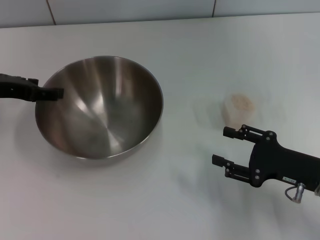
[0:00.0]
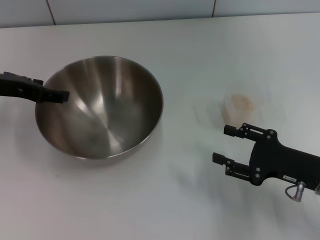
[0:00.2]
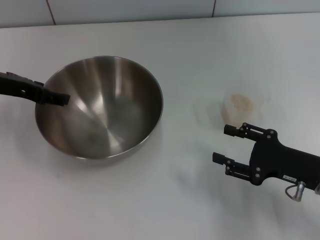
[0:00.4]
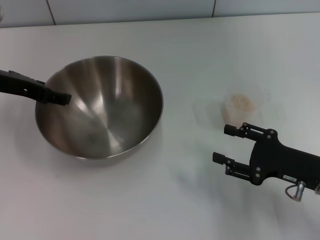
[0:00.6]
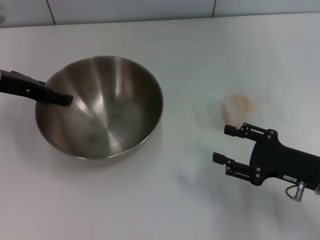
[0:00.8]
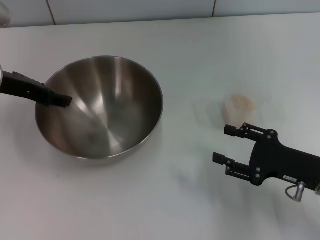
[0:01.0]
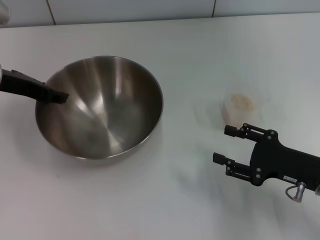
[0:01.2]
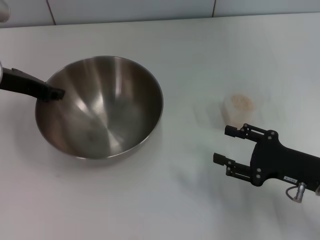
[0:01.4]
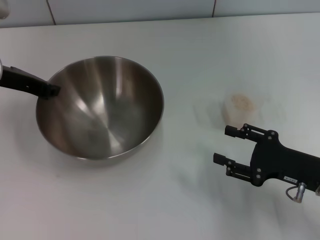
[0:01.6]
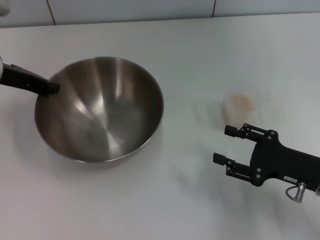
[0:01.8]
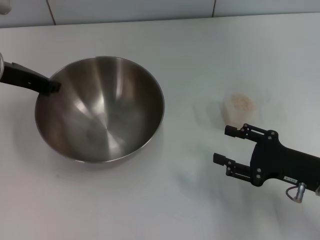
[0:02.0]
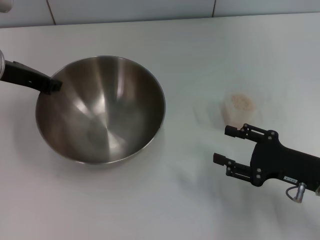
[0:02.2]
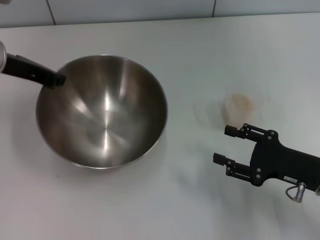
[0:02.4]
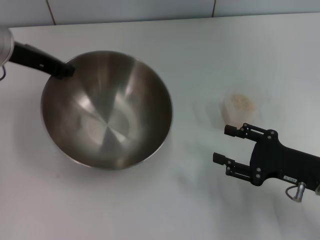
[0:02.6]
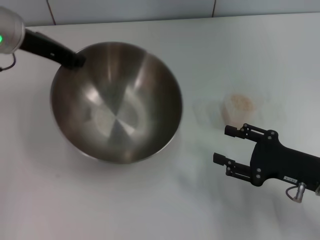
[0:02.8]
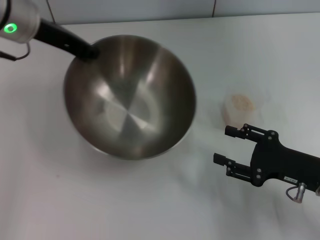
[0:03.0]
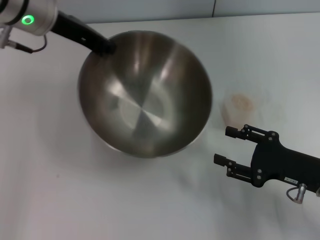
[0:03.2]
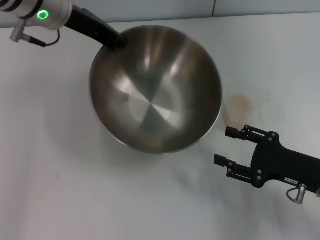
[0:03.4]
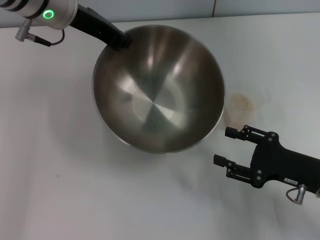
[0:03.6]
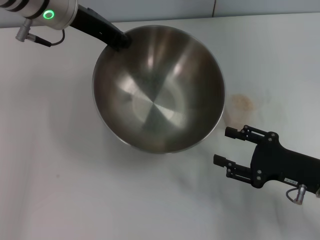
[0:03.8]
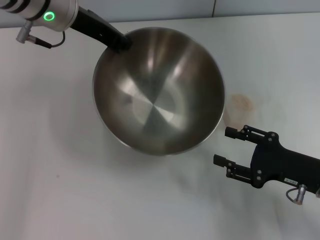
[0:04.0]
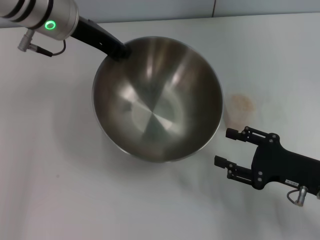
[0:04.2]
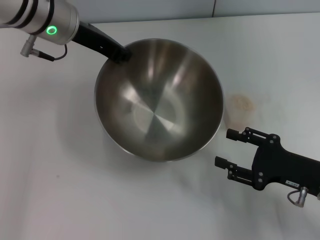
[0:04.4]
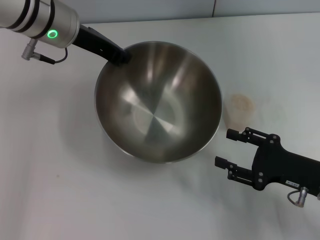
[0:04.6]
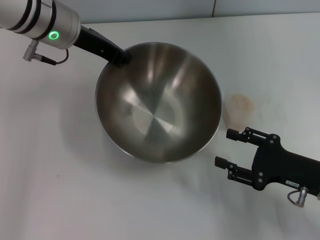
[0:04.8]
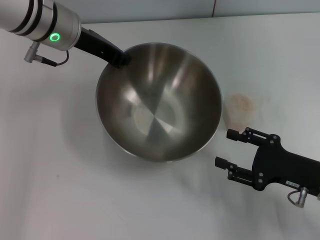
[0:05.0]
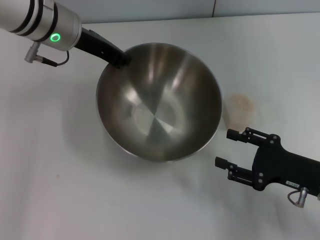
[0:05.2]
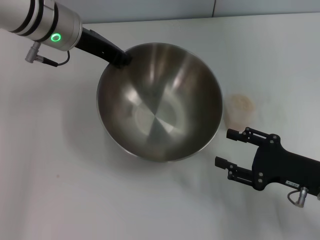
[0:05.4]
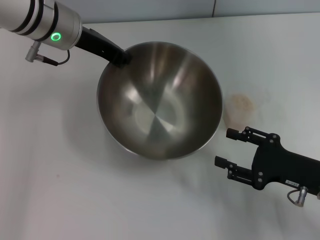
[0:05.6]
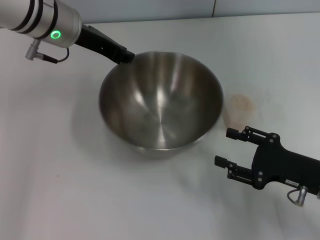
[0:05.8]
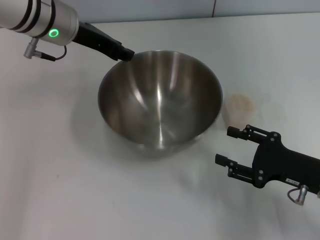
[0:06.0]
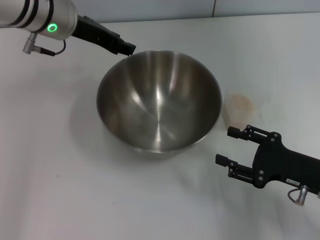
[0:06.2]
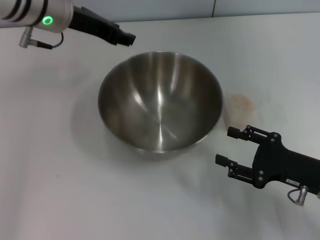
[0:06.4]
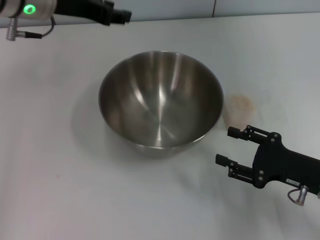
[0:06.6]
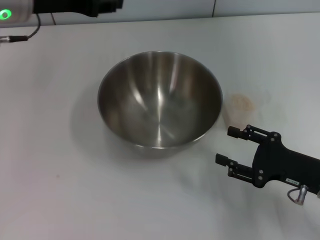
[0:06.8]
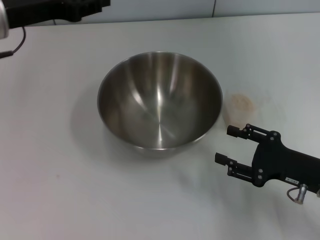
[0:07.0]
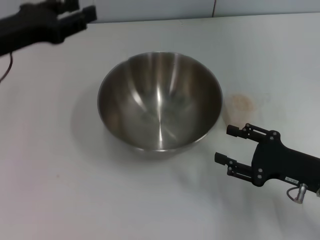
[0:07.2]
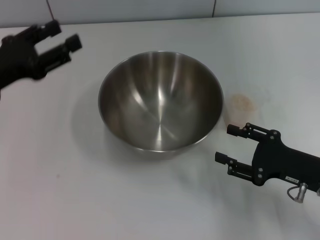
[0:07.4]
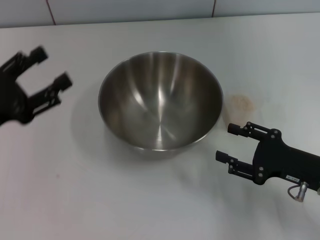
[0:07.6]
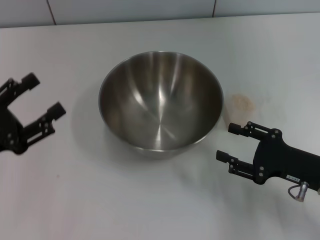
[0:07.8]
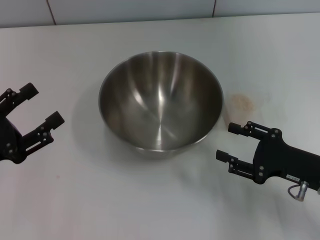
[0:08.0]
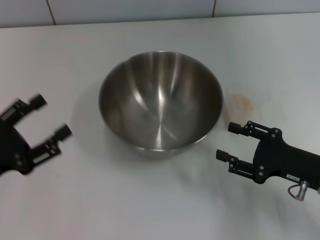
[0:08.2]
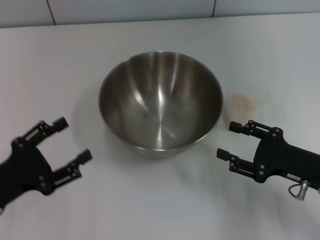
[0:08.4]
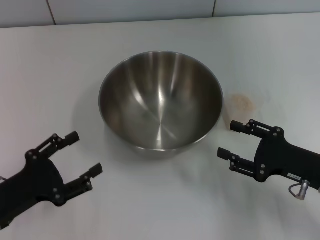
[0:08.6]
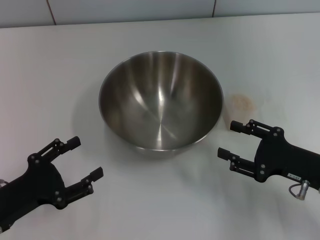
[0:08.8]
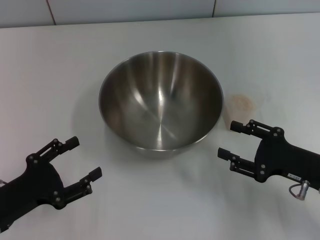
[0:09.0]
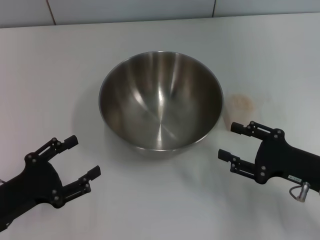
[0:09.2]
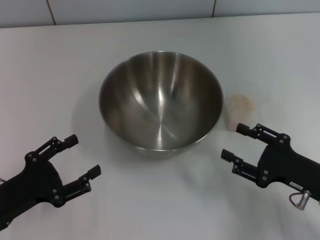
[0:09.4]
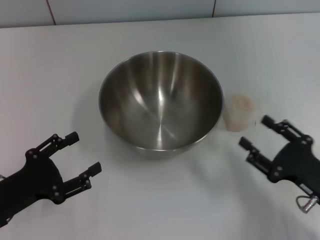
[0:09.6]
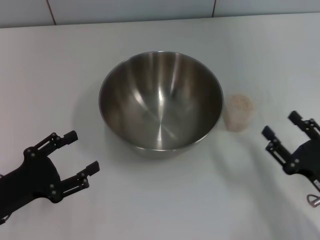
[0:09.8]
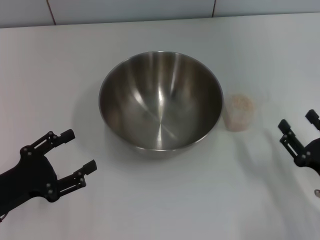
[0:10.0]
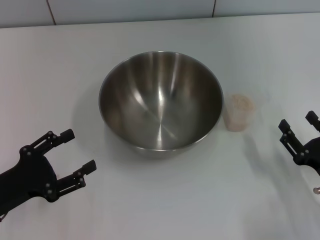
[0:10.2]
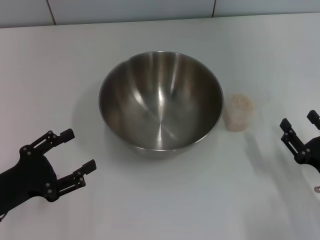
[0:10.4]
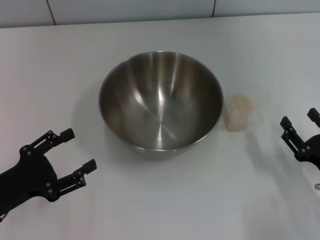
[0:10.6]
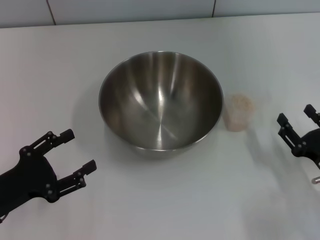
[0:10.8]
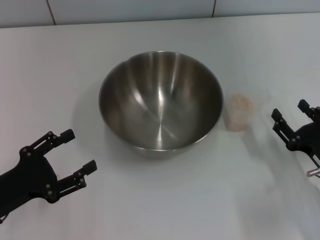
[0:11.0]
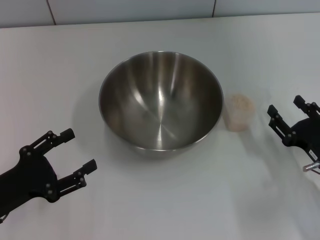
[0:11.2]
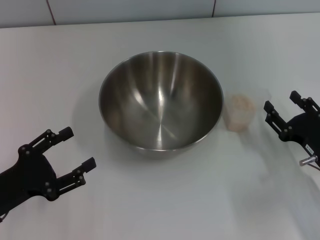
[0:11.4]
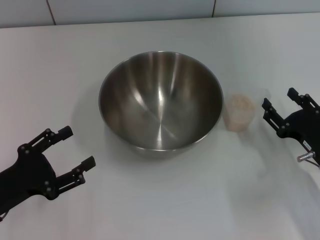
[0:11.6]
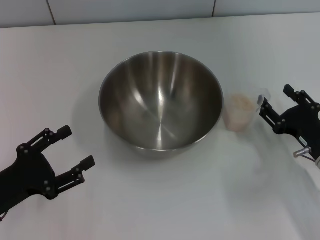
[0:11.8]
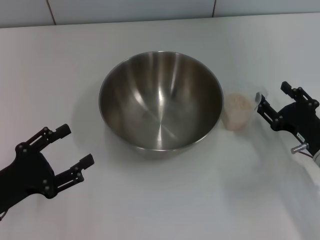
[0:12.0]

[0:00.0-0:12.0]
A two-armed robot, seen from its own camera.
Task of the whole recording: Place the bowl in the middle of the table with one hand and pour the rice from the grain cup into it with the other hand.
Step, 0:00.0 to 0:02.4: Pick up the bowl with the left gripper.
Step, 0:02.6 to 0:06.0: Place the bowl in the center of view with the left gripper.
0:00.0 to 0:01.6: The left gripper closes its fingers.
0:01.6 to 0:03.0: The left gripper heads to the right and upward, covering roughly 10 cm.
0:04.4 to 0:06.0: The grippers stay close to where they were, moving slightly.
0:06.0 to 0:07.6: The left gripper heads backward, to the left and downward, covering roughly 25 cm, and opens its fingers.
0:07.6 to 0:09.0: The left gripper goes some 10 cm downward and backward.
0:09.0 to 0:10.4: The right gripper moves backward, about 5 cm.
0:10.4 to 0:12.0: The right gripper moves forward, roughly 10 cm.

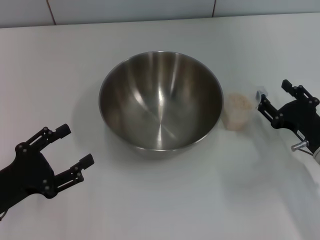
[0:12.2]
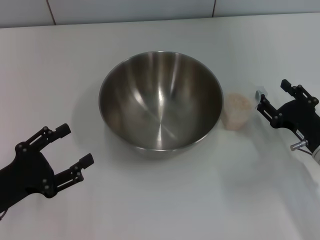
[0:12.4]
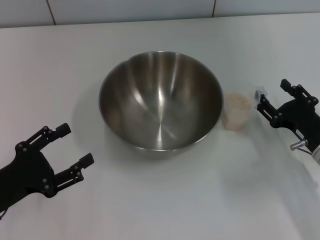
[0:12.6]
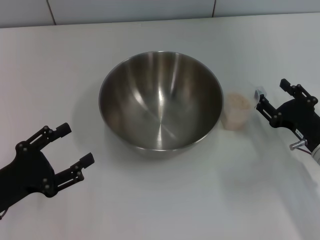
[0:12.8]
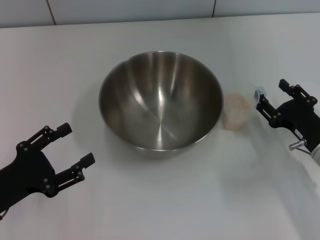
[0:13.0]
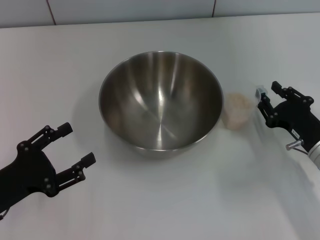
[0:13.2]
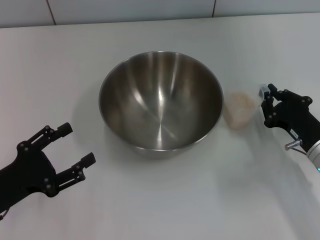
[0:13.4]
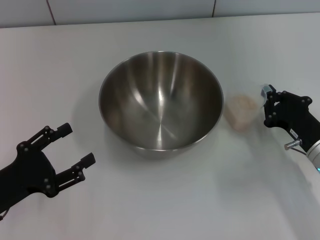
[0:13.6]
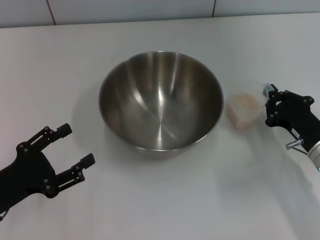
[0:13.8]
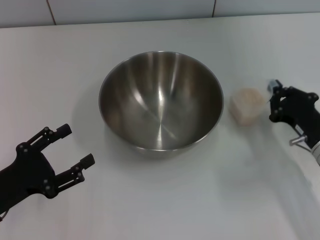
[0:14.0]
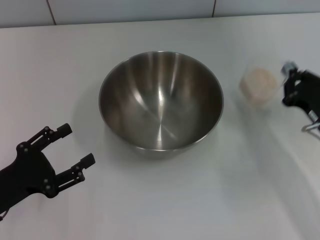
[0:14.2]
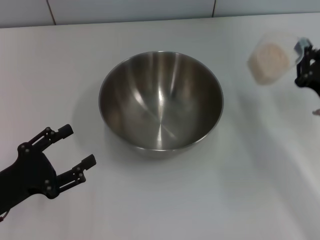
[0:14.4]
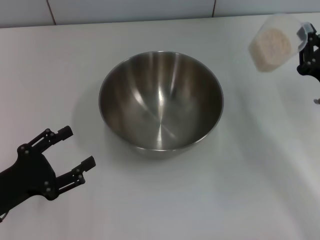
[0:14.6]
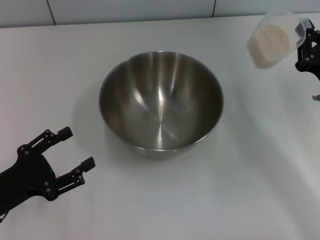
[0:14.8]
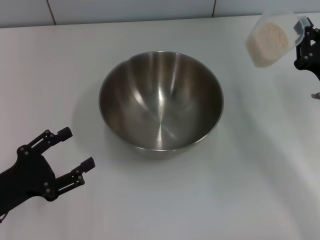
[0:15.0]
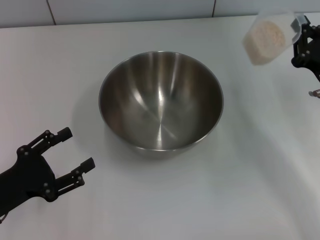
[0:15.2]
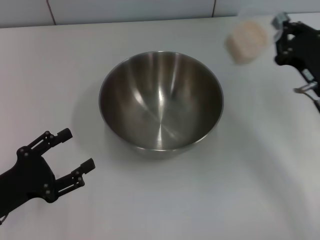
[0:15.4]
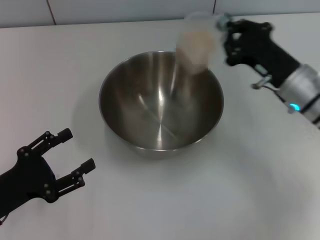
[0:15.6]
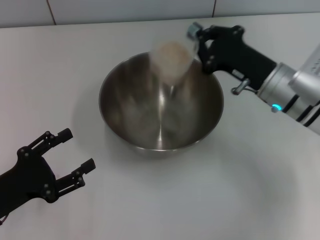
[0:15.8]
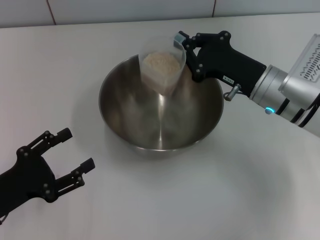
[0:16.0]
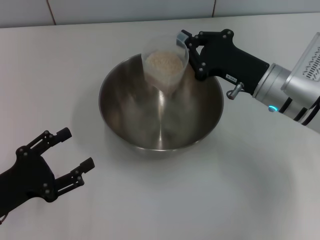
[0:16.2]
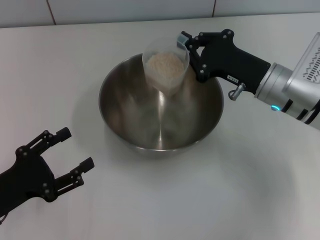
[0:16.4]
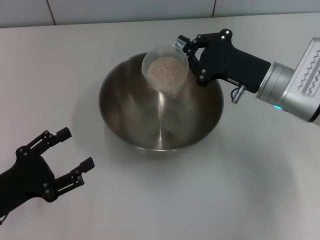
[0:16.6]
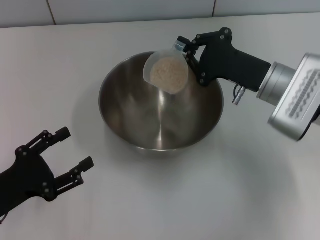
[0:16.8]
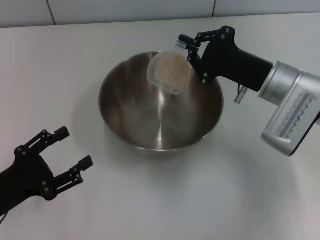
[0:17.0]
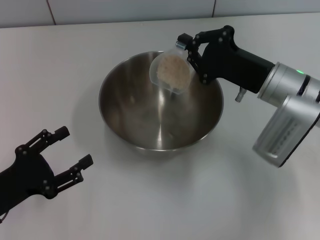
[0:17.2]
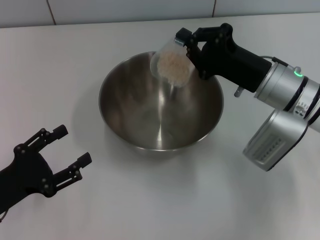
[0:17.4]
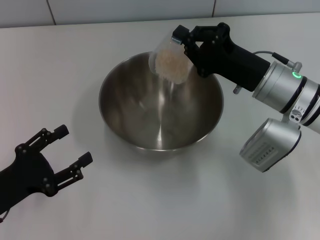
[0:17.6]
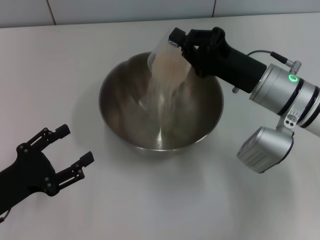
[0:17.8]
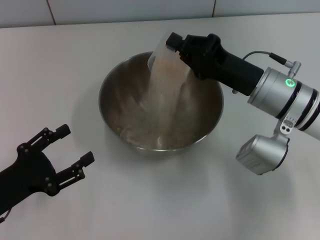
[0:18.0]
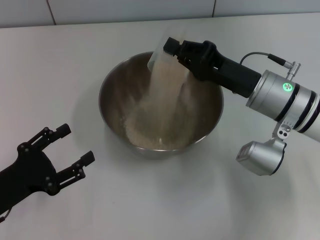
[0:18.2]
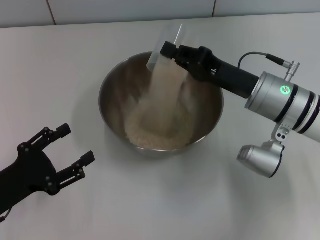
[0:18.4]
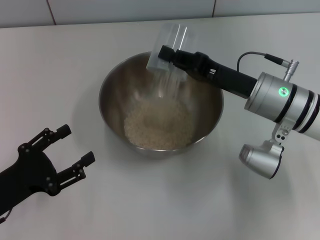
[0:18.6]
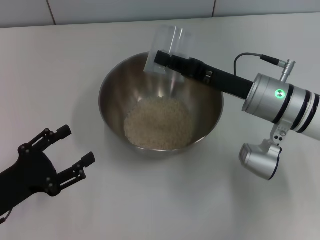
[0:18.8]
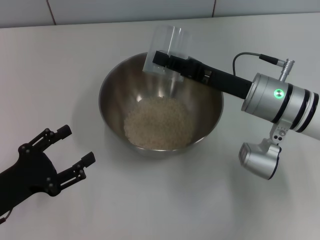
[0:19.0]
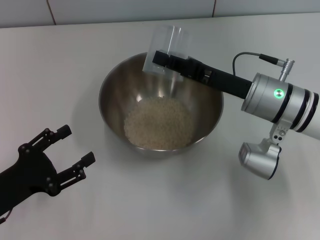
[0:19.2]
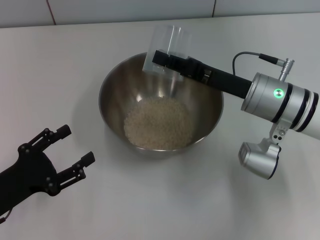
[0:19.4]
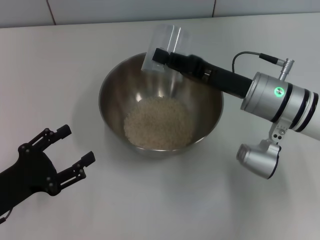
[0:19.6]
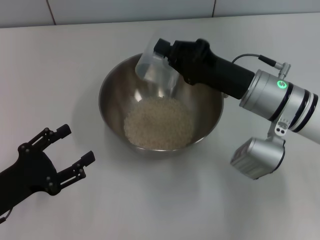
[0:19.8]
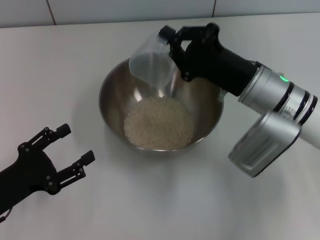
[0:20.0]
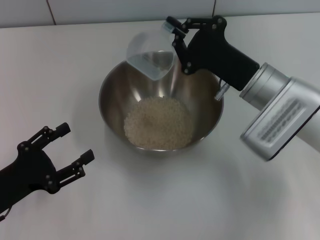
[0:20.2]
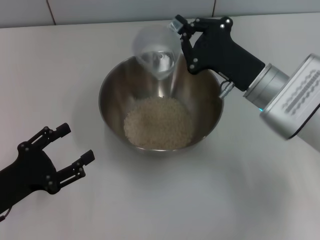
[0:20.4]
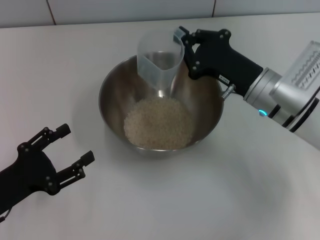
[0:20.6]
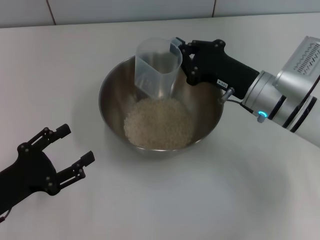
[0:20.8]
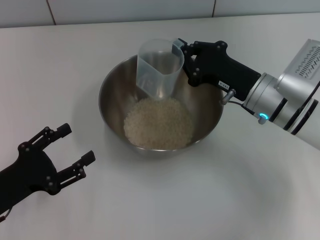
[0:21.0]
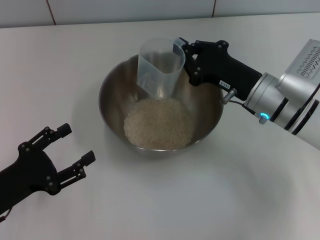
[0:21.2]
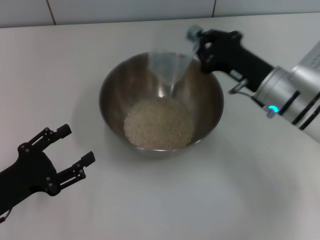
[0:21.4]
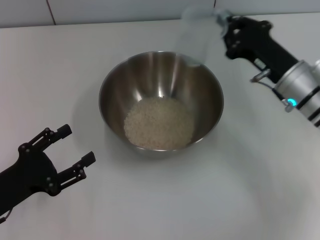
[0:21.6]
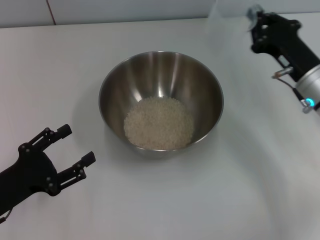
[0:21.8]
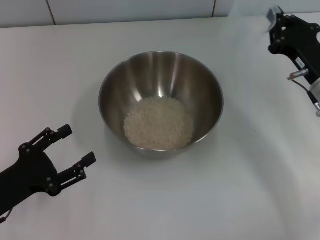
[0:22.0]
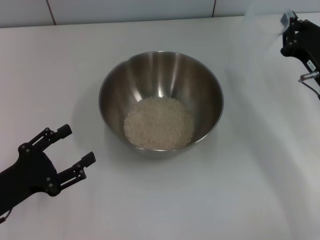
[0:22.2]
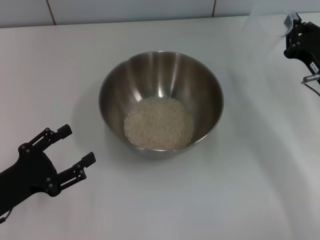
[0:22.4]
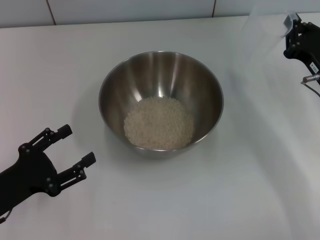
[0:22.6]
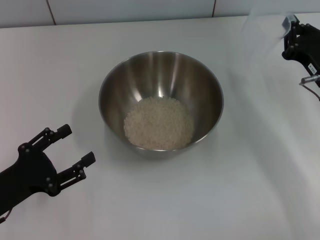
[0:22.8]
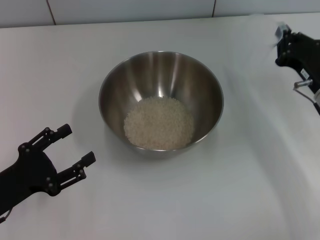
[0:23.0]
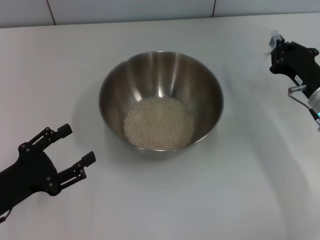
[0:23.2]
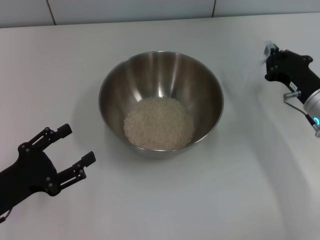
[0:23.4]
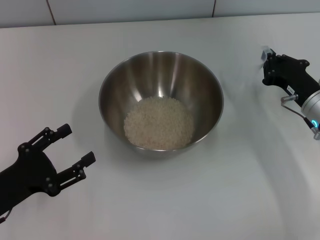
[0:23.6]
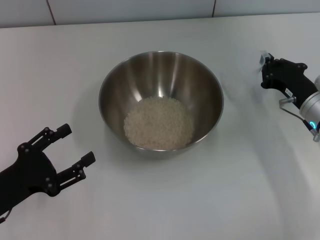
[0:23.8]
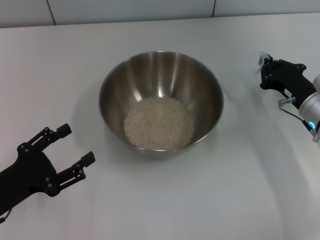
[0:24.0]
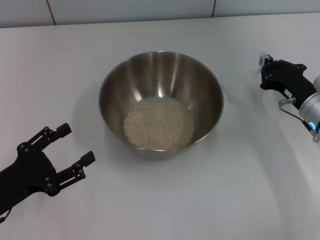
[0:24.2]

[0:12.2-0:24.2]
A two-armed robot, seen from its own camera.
Task of the whole recording: Place the bowl in the middle of the table with one hand and pour the rice from the grain cup into it with the other hand.
Step, 0:12.2 to 0:14.8: Pick up the cup with rice in it with the right gripper.
Step, 0:15.2 to 0:21.6: Pour the rice from the cup into the bowl with the right gripper.
0:12.2 to 0:13.8: The right gripper closes up.
0:13.8 to 0:15.2: The right gripper heads upward, covering approximately 5 cm.
0:15.2 to 0:16.6: The right gripper heads to the left and forward, covering approximately 10 cm.
0:18.2 to 0:19.8: There are only small adjustments of the grippers.
0:21.2 to 0:22.6: The right gripper heads to the right, covering about 10 cm.
0:22.6 to 0:24.2: The grippers stay close to where they were, moving slightly.
